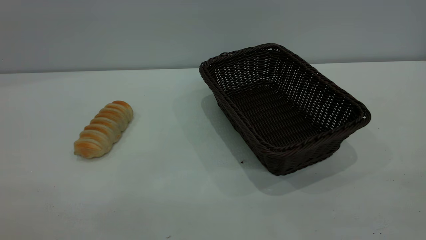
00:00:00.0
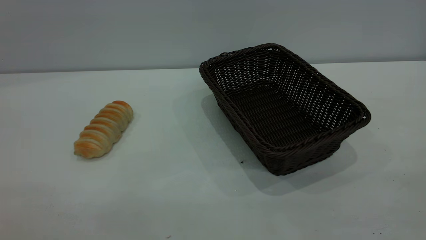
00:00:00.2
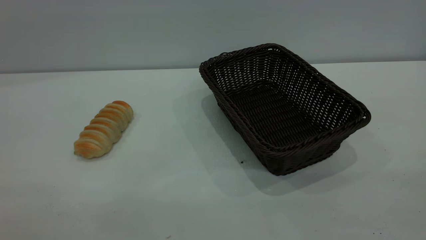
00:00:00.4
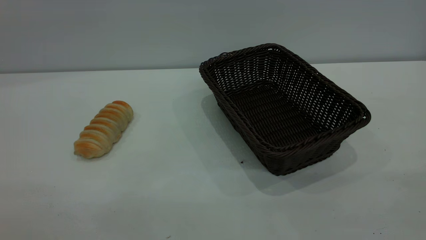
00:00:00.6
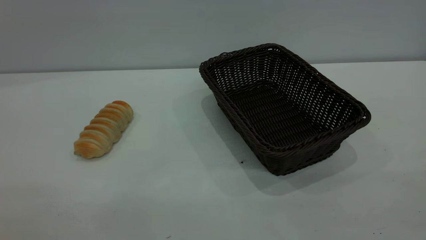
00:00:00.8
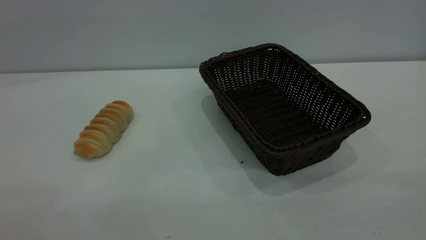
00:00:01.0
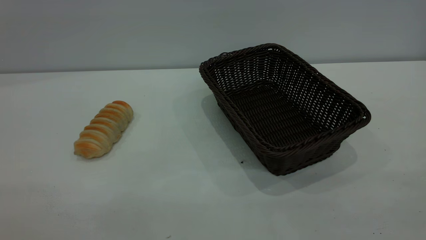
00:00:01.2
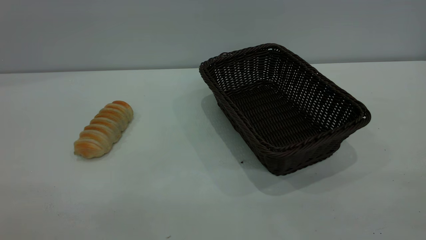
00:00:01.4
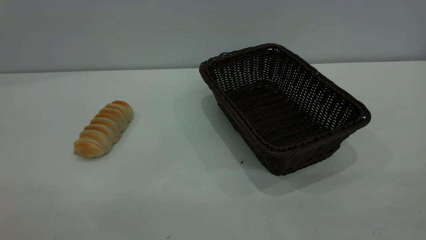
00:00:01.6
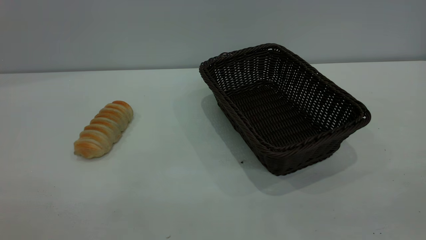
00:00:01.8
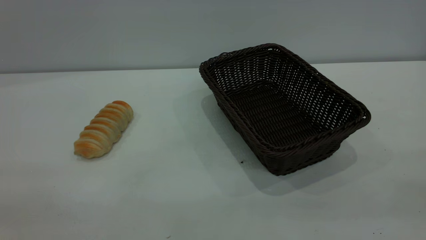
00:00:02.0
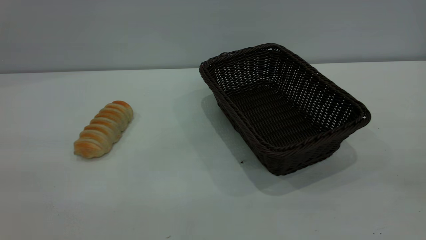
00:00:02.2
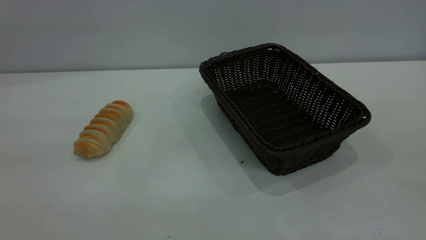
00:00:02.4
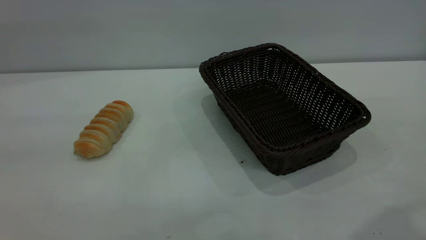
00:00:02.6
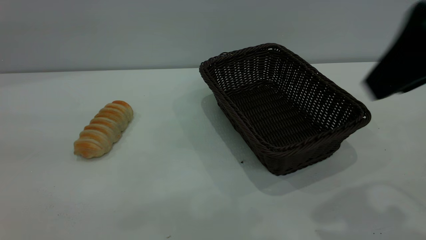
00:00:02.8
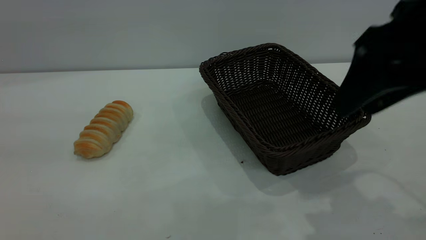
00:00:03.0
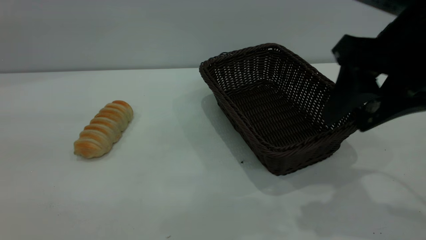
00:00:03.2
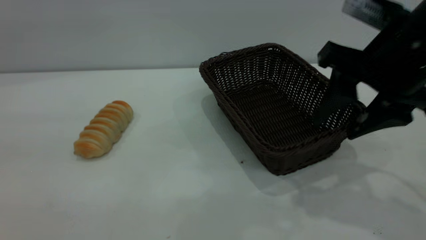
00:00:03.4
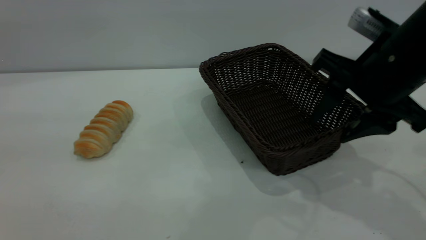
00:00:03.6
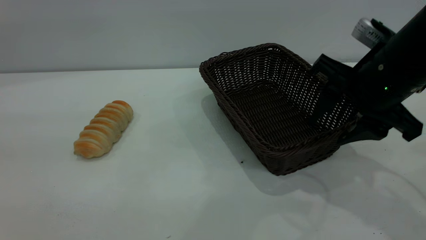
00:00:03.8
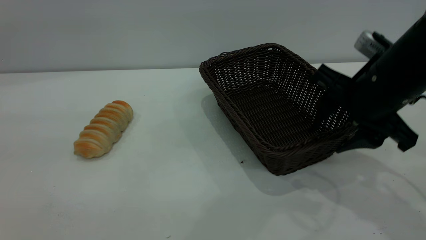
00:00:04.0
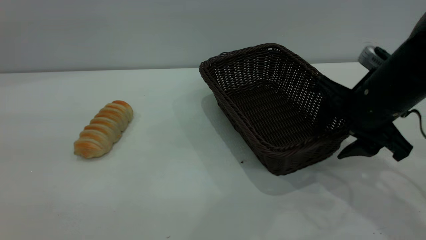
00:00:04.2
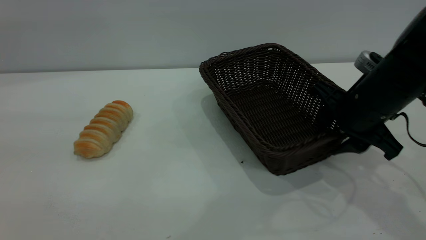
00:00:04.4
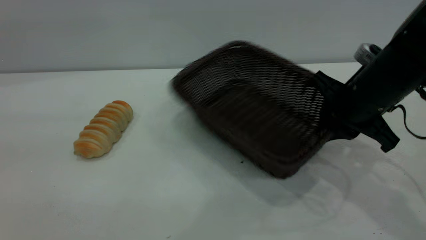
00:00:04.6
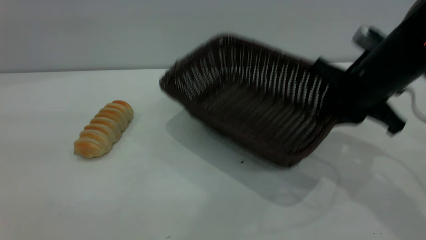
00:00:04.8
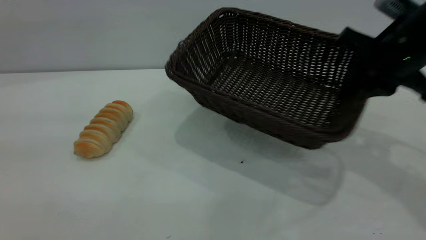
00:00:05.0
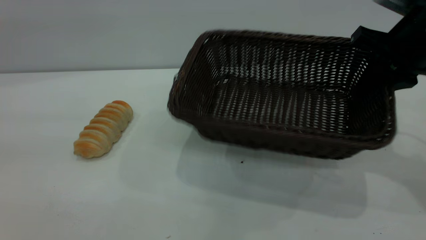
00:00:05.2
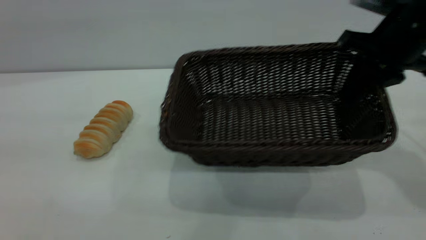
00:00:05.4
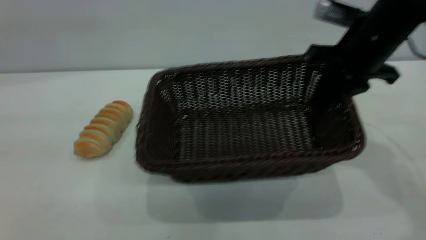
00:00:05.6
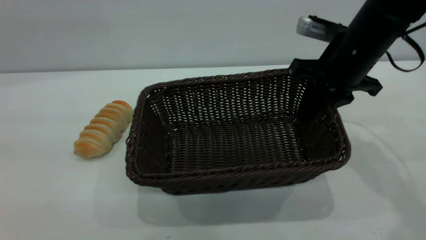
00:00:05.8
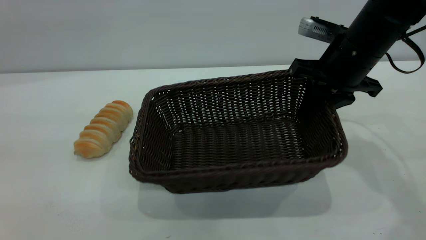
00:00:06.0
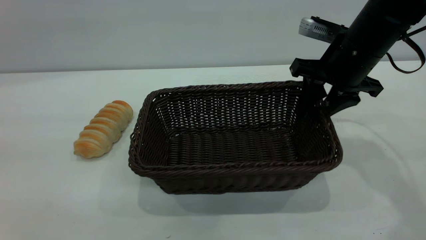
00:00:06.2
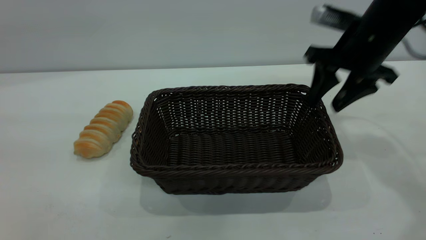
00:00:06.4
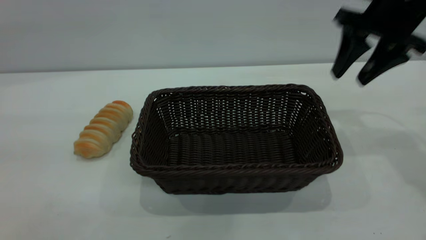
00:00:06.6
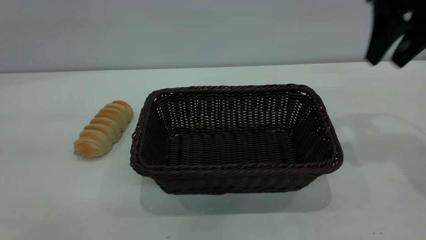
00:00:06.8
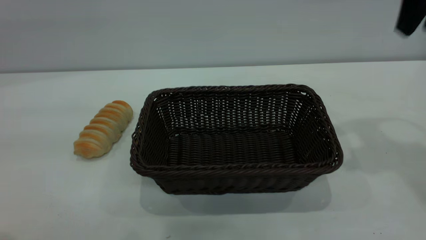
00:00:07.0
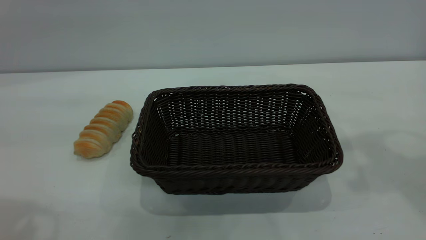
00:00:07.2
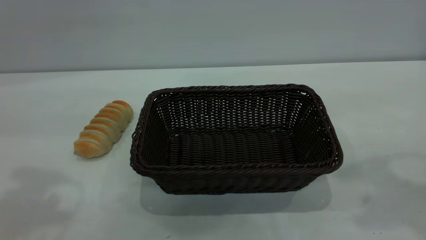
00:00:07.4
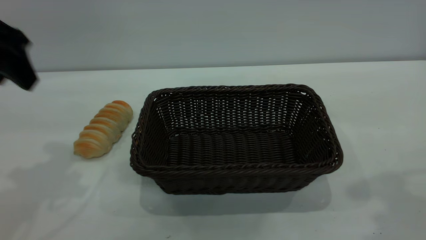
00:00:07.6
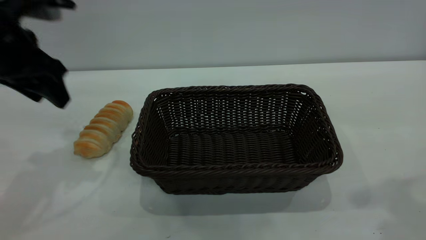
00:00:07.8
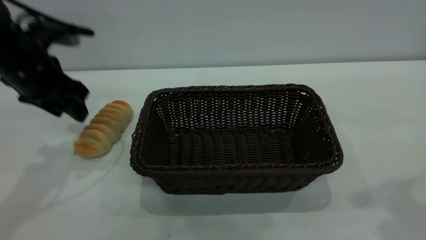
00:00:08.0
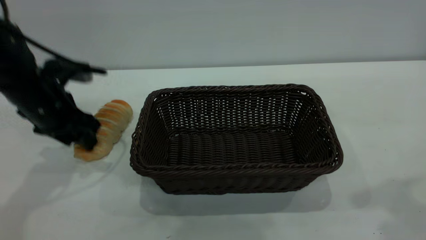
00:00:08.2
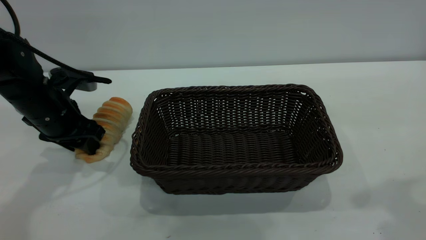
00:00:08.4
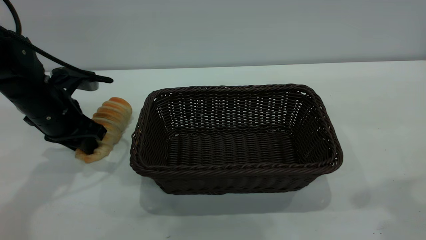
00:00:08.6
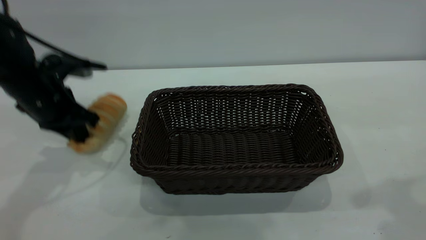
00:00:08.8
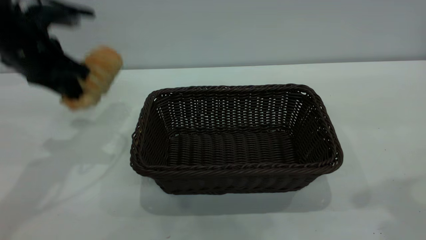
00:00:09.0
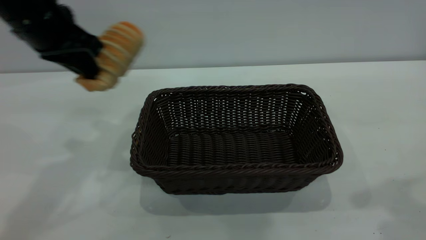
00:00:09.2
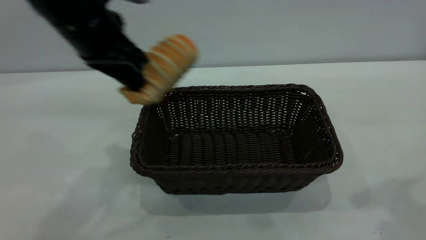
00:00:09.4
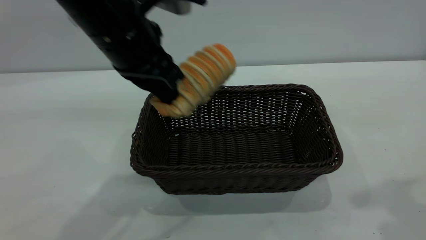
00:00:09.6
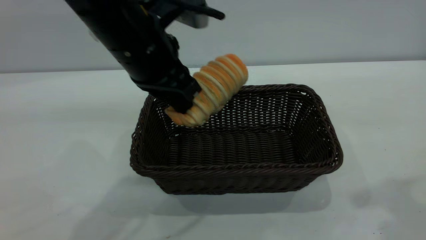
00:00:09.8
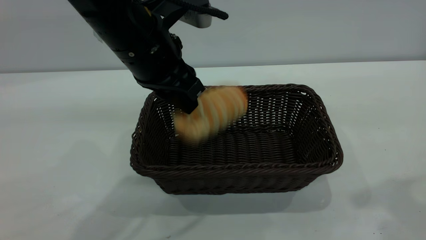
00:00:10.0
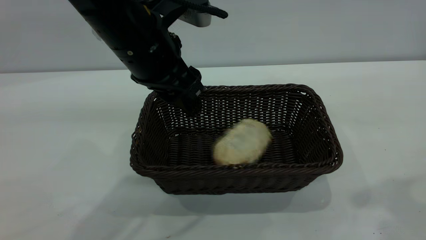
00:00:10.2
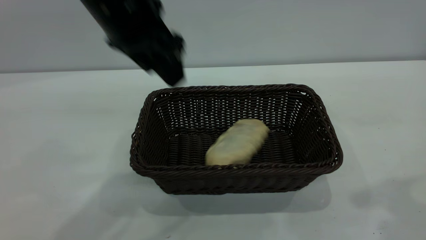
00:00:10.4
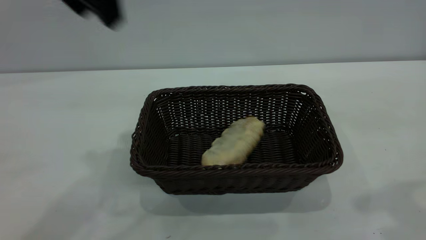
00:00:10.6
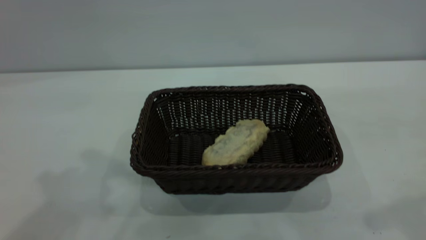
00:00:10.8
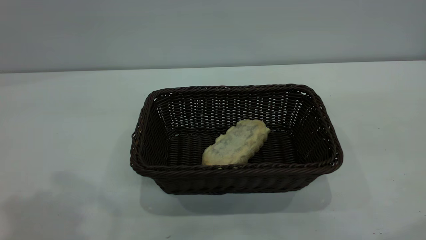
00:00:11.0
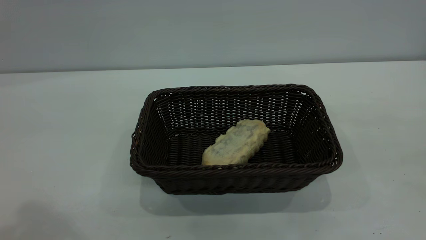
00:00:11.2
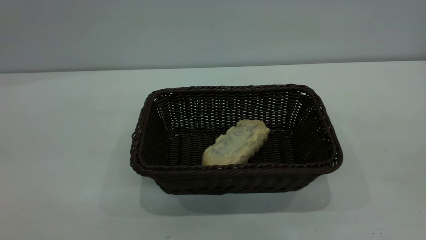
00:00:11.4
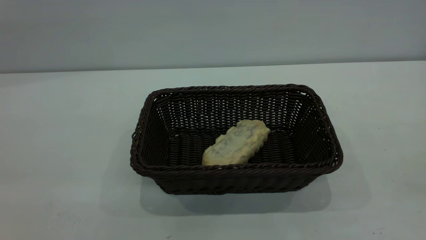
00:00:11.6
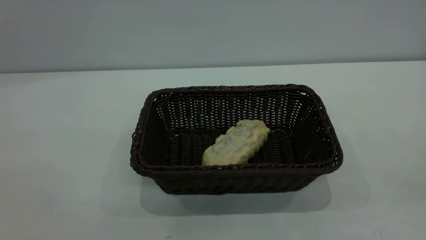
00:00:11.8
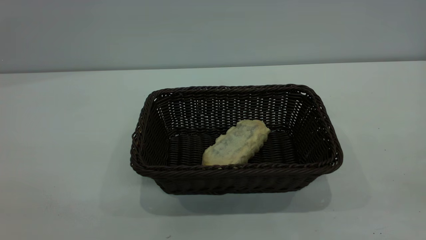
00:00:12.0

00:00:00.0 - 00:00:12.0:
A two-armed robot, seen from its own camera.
Task of the whole recording: One hand grasps the black basket and places it in the middle of the table, while the other hand picks up the long bread and puts it into the black basket.
Step, 00:00:00.0 - 00:00:06.4: Move the basket to the center of view.
Step, 00:00:09.2 - 00:00:10.4: place the bread into the basket.
00:00:00.0 - 00:00:01.6: Both grippers stay put.
00:00:01.6 - 00:00:03.0: The right gripper heads forward and to the left, covering approximately 30 cm.
00:00:03.0 - 00:00:04.4: The right gripper heads downward and forward, covering roughly 15 cm.
00:00:04.4 - 00:00:06.0: The right gripper is displaced forward by some 5 cm, and closes up.
00:00:06.0 - 00:00:07.6: The left gripper travels forward and downward by roughly 25 cm; the right gripper travels upward and backward by some 30 cm, and opens.
00:00:07.6 - 00:00:09.0: The left gripper heads forward, covering approximately 5 cm, reaches roughly 20 cm downward, then returns, and closes up.
00:00:09.0 - 00:00:10.4: The left gripper shifts some 15 cm to the right and upward, and opens up.
00:00:10.4 - 00:00:12.0: The left gripper shifts roughly 35 cm backward and to the left; the right gripper moves backward, some 20 cm.

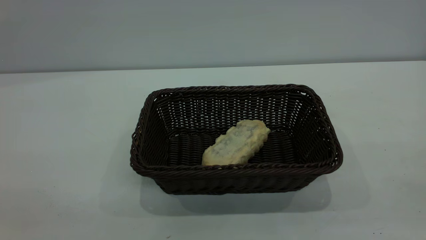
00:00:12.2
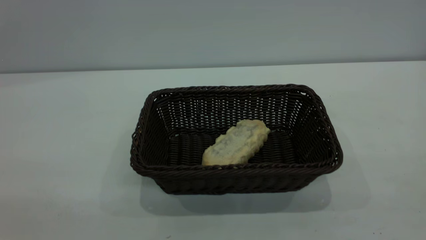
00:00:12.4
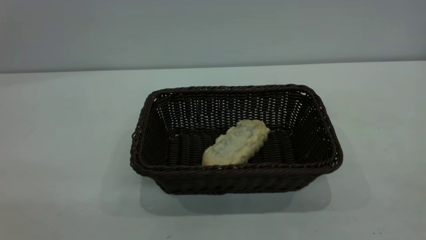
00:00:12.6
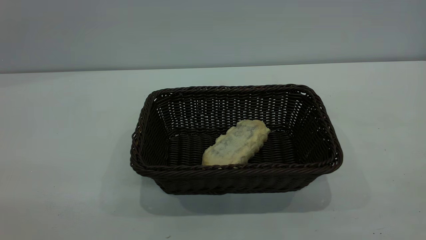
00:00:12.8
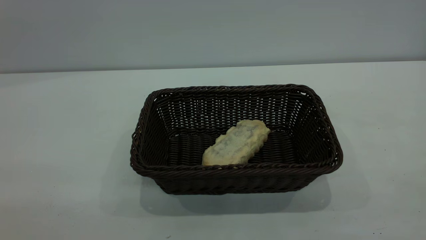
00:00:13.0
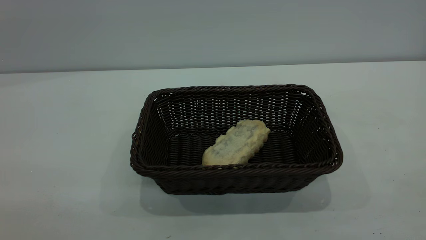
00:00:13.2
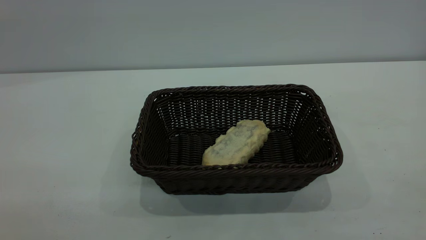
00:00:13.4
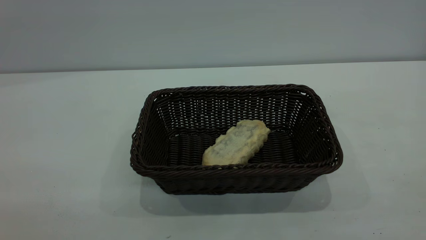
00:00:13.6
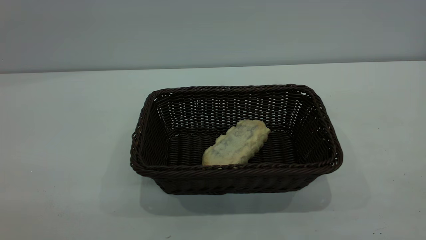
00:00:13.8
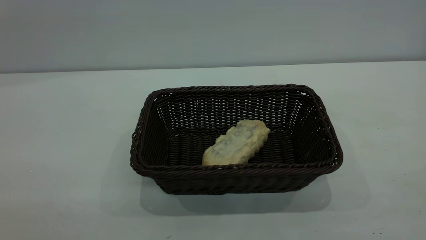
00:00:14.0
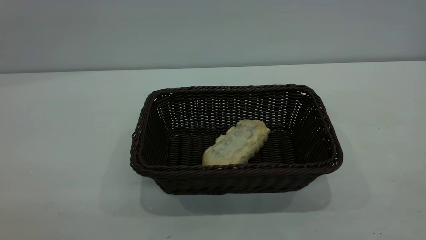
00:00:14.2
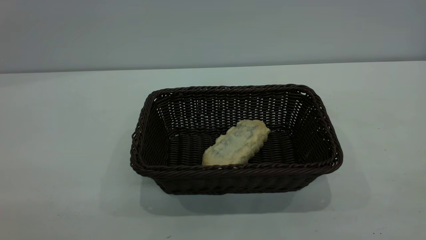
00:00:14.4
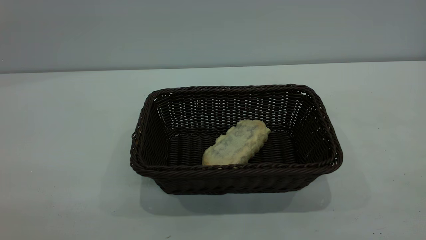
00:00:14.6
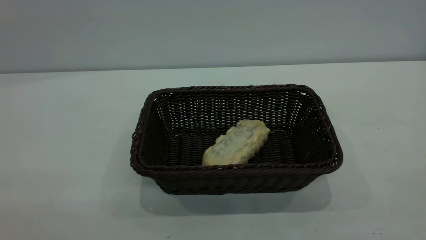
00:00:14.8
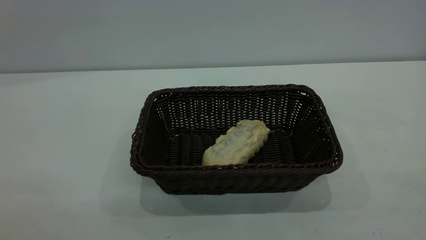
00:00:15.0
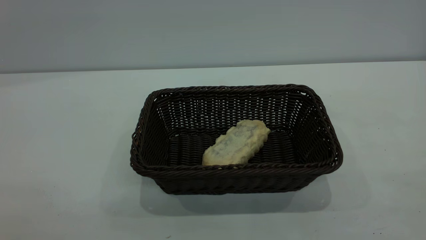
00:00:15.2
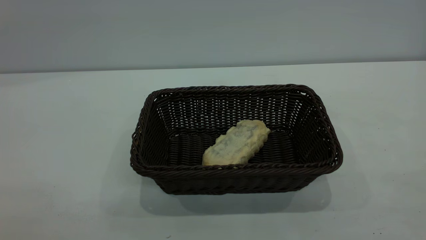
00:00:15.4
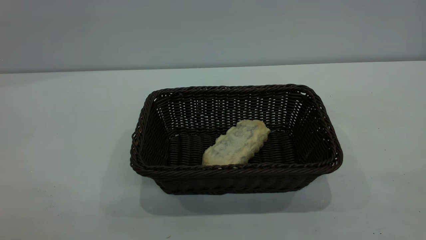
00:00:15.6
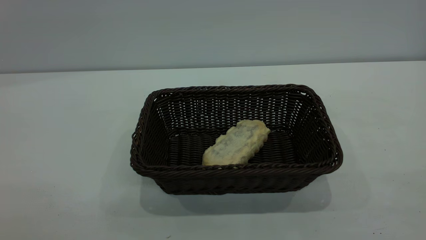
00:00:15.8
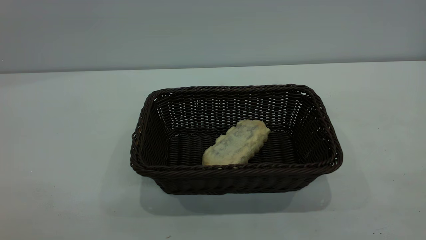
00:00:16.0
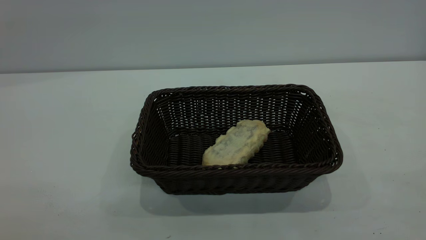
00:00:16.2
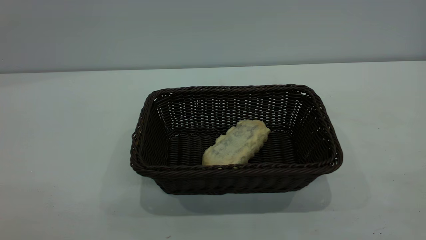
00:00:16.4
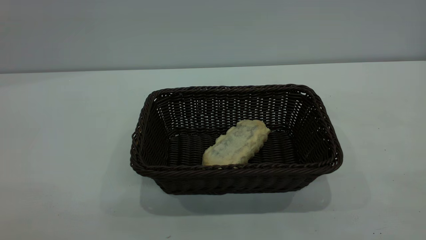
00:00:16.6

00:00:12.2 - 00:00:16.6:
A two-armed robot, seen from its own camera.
Task of the whole recording: One hand grasps the black basket and places it in the middle of the table, while the other hand picks up the long bread and puts it into the black basket.
00:00:15.2 - 00:00:16.6: Neither gripper changes place.
